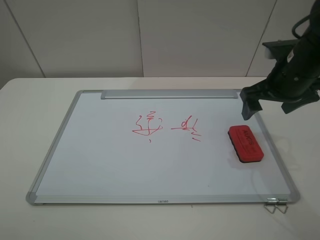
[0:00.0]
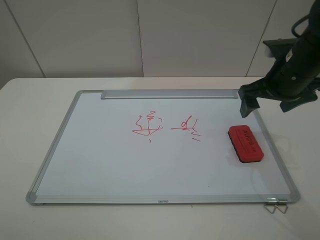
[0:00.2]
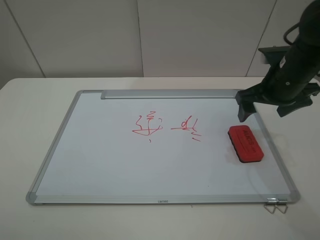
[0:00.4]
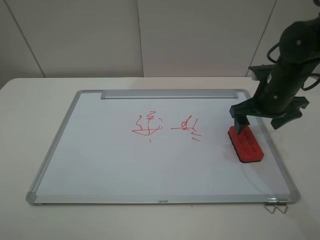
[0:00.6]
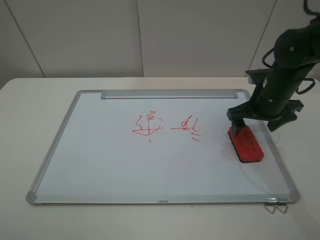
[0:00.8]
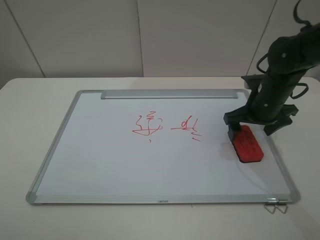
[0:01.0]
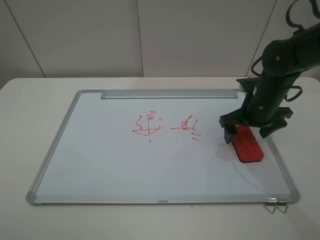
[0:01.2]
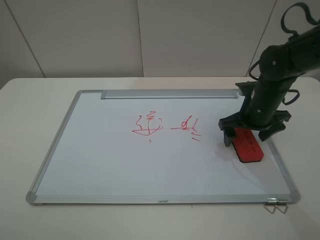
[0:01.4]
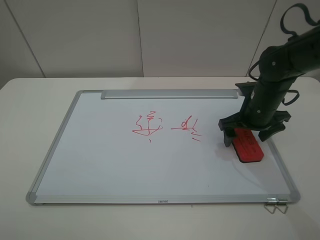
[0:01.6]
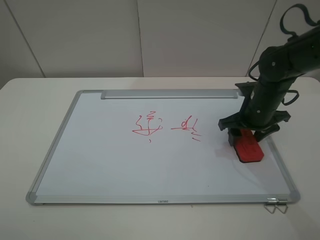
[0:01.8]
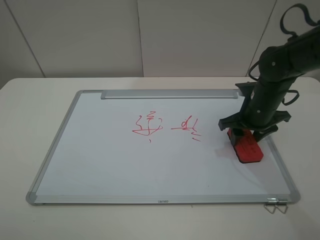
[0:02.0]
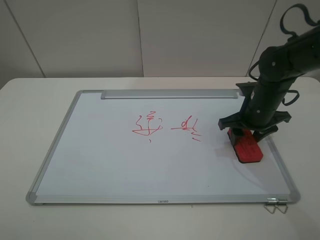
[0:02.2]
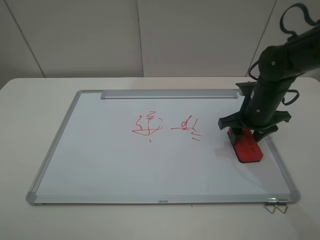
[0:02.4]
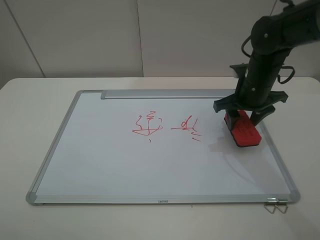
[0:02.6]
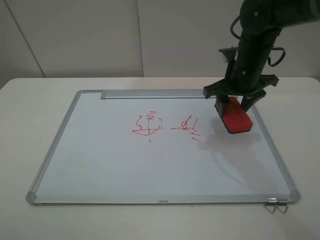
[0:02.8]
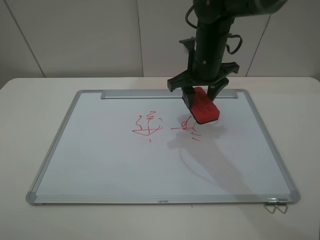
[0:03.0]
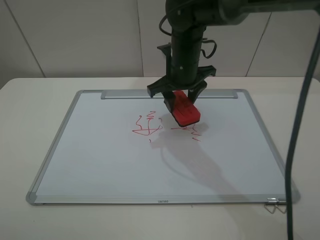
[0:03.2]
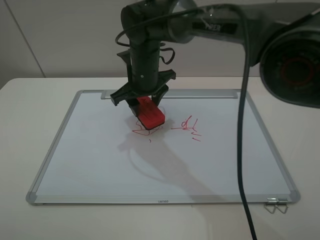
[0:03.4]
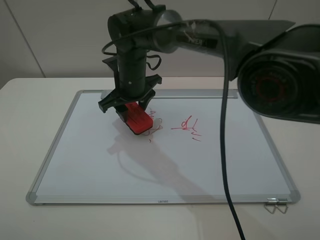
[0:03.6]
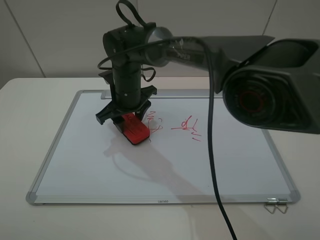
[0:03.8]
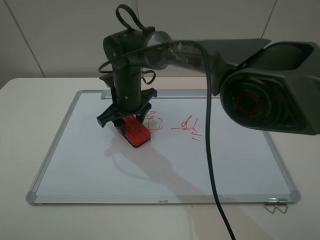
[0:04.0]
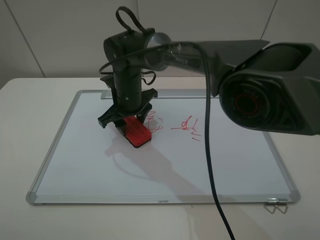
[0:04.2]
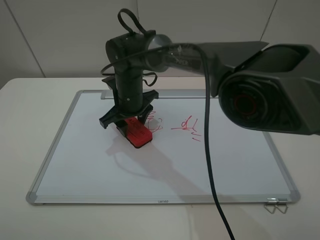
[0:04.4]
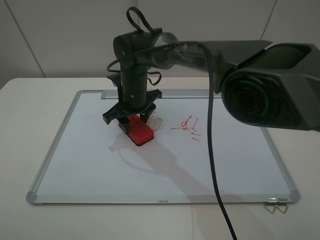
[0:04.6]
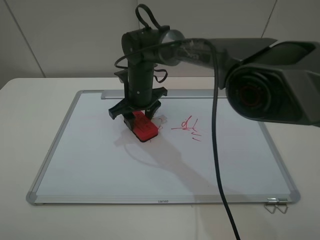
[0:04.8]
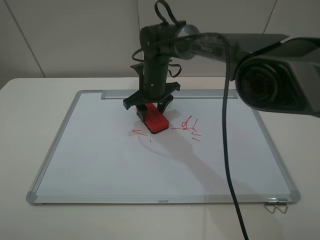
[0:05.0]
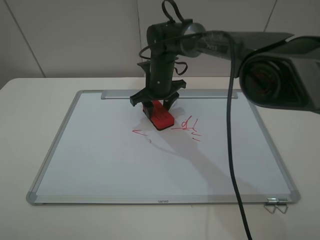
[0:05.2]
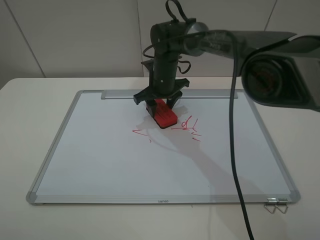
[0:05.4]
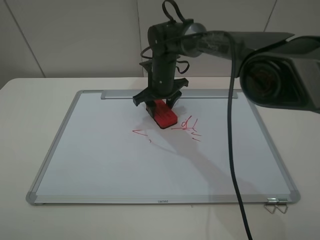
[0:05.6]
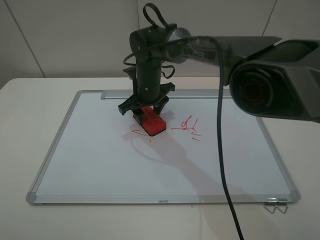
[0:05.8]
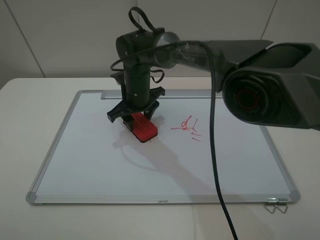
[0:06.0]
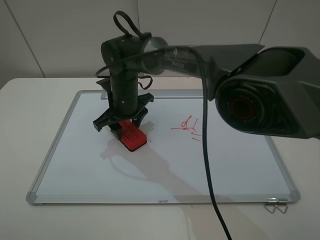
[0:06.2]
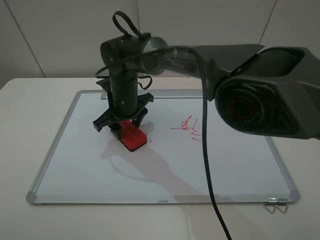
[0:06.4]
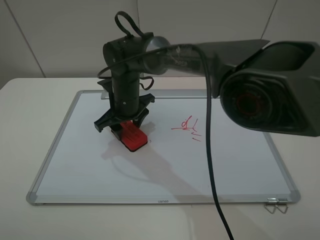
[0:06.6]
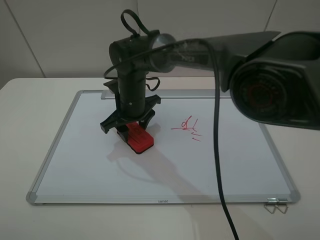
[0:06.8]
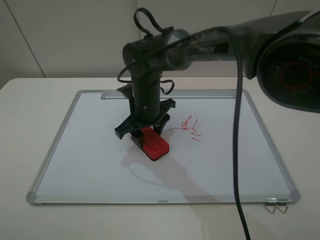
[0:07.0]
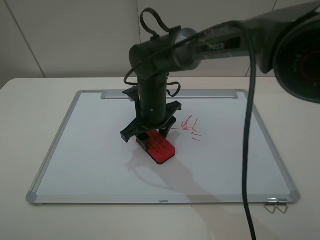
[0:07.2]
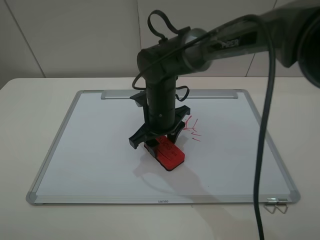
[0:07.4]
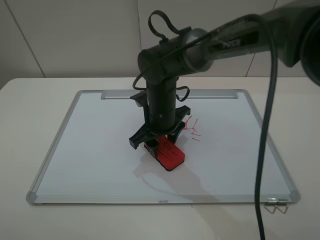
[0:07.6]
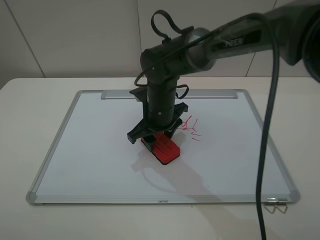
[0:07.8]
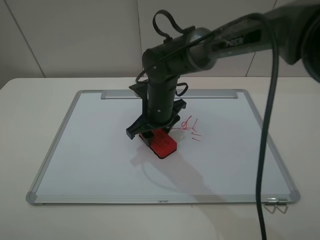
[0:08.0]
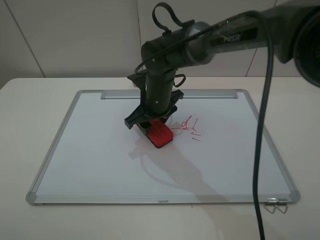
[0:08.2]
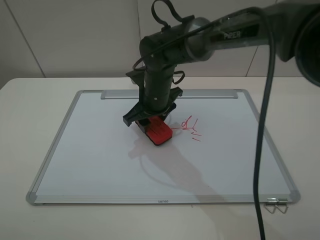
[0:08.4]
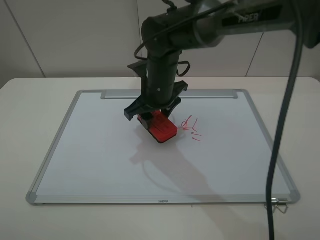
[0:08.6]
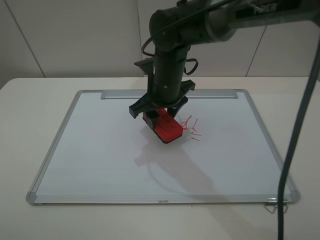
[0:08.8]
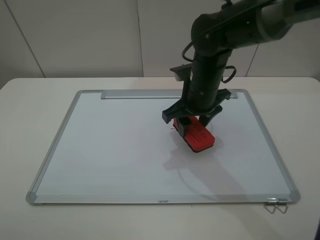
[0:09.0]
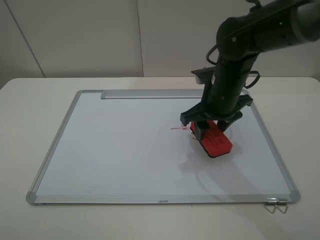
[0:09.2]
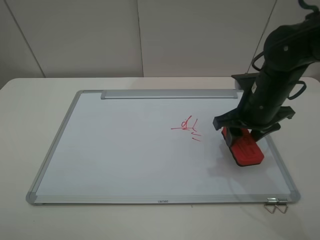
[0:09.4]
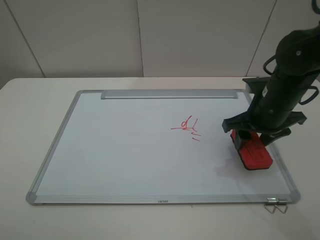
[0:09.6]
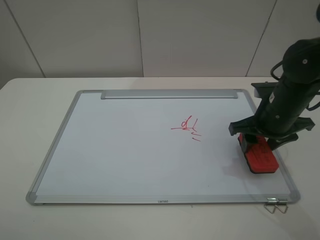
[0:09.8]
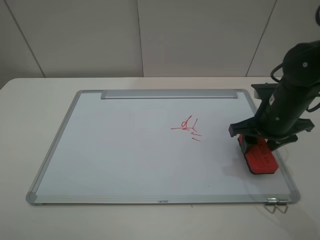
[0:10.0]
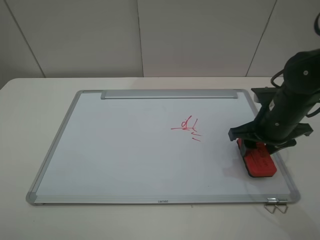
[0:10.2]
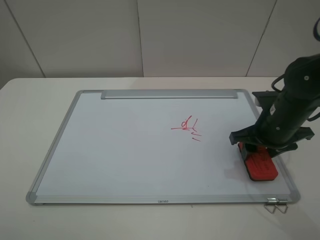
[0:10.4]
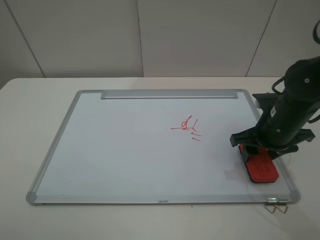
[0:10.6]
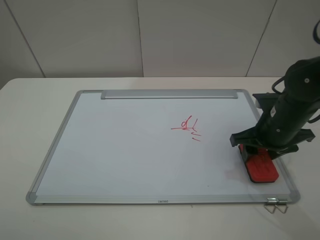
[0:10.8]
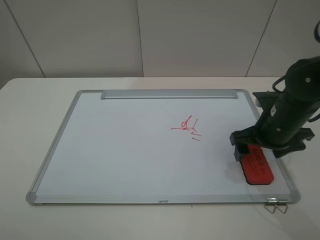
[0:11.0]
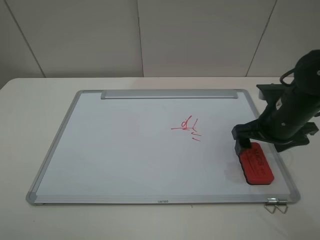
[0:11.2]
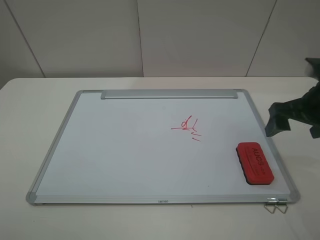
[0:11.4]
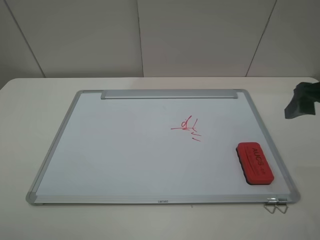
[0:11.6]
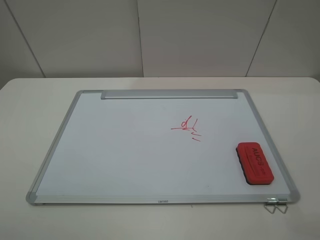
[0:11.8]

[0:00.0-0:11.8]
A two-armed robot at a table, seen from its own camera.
Step, 0:02.0 to 0:08.6: Grasp the eraser and wipe the blackboard with the right gripper.
Step, 0:08.8 to 0:11.2: Place the eraser with the right gripper.
0:00.0 to 0:01.4: The right gripper goes approximately 10 cm downward.
0:01.4 to 0:03.0: The right gripper heads to the left, upward and forward, covering approximately 15 cm, and closes.
0:03.0 to 0:04.4: The right gripper moves to the left and downward, some 15 cm.
0:04.4 to 0:06.0: The right gripper travels to the right and back again, approximately 10 cm each way.
0:06.0 to 0:07.4: The right gripper moves to the right and backward, approximately 10 cm.
0:07.4 to 0:08.8: The right gripper heads upward, covering about 5 cm.
0:08.8 to 0:10.4: The right gripper is displaced to the right and backward by about 20 cm.
0:10.4 to 0:11.8: The right gripper shifts roughly 20 cm upward and backward, and opens up.

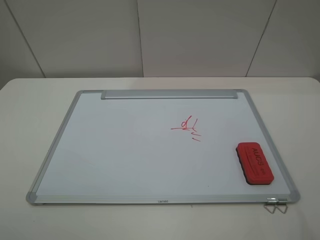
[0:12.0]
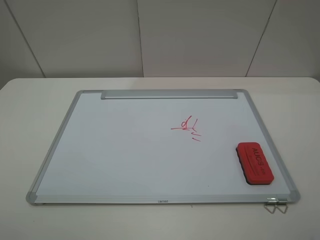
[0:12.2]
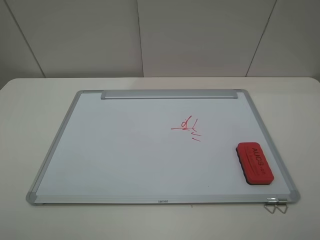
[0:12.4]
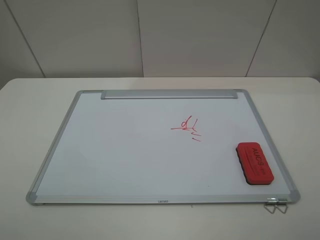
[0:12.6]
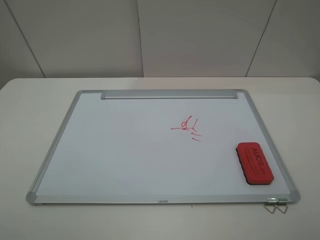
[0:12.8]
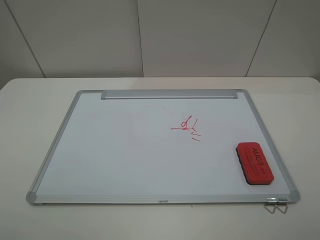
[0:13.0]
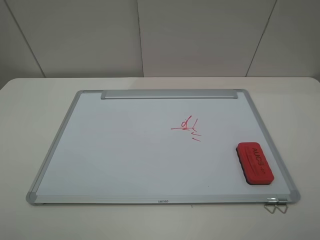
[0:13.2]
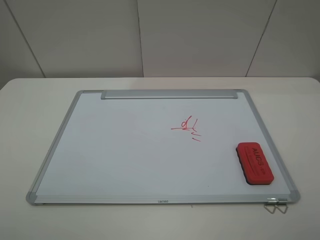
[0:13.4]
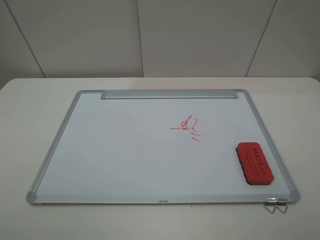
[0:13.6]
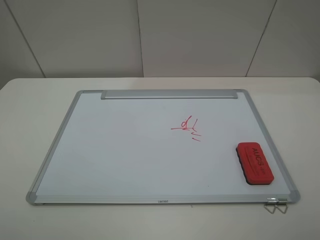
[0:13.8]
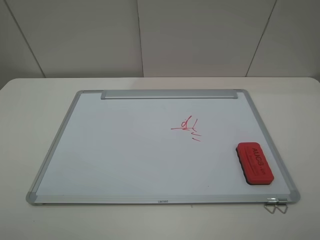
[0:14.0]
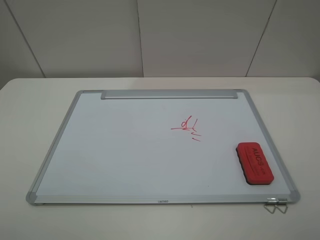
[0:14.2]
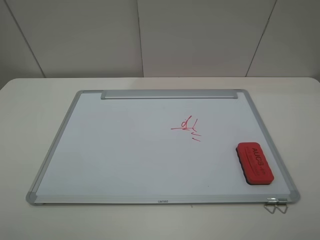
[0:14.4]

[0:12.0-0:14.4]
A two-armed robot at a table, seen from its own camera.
0:13.2 to 0:14.4: Both grippers stay put.
